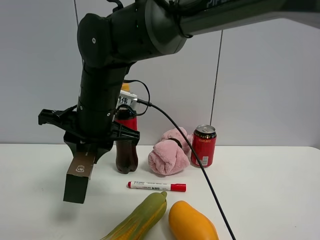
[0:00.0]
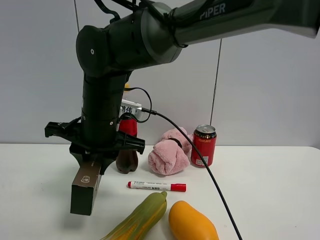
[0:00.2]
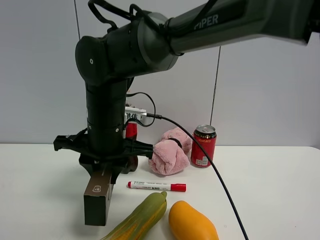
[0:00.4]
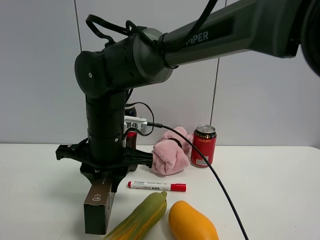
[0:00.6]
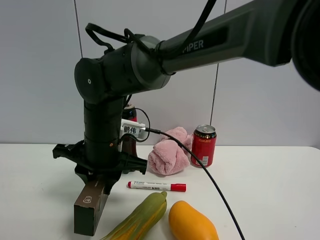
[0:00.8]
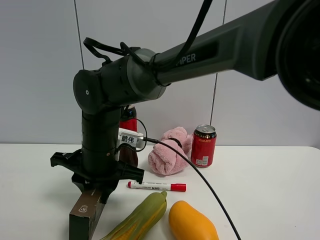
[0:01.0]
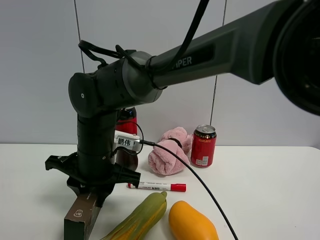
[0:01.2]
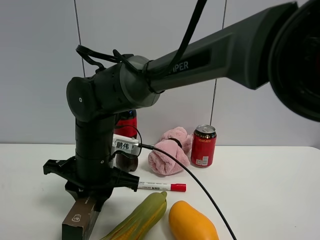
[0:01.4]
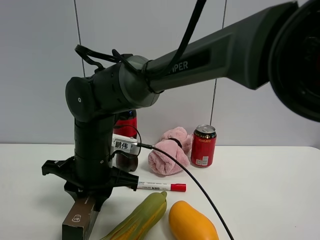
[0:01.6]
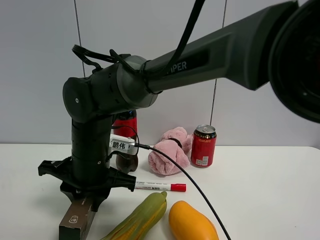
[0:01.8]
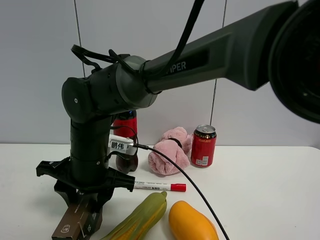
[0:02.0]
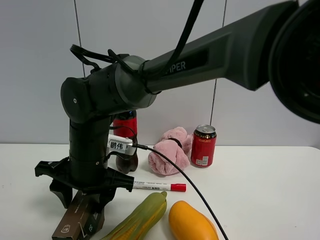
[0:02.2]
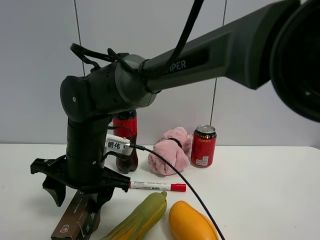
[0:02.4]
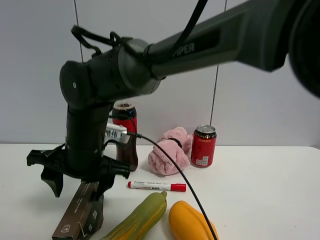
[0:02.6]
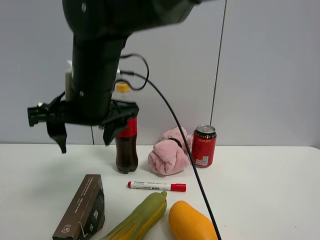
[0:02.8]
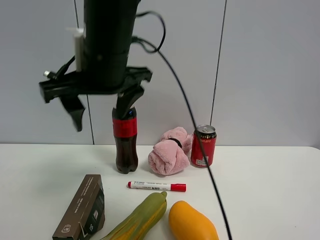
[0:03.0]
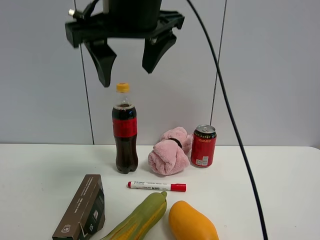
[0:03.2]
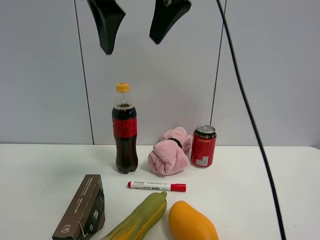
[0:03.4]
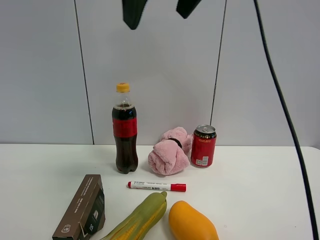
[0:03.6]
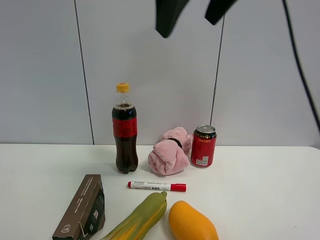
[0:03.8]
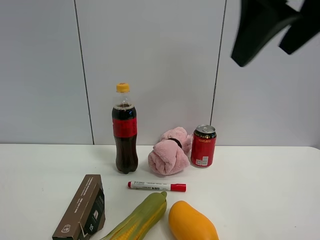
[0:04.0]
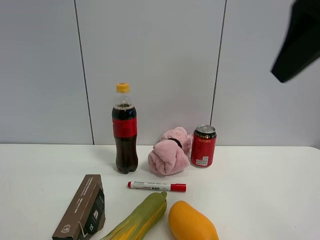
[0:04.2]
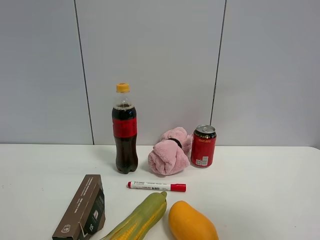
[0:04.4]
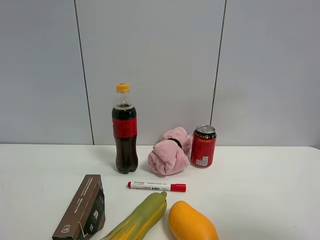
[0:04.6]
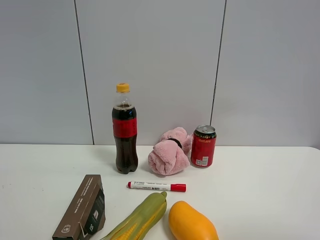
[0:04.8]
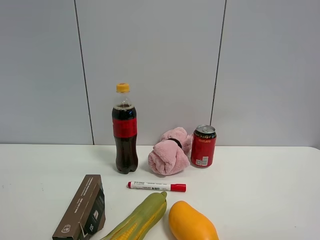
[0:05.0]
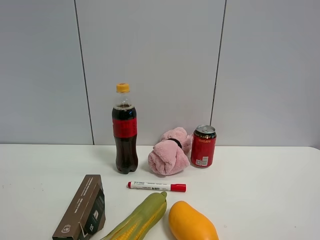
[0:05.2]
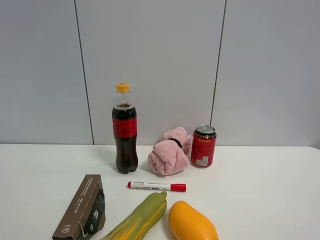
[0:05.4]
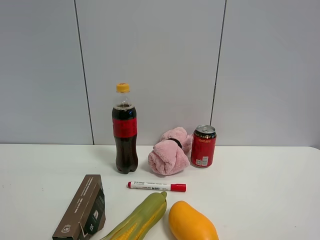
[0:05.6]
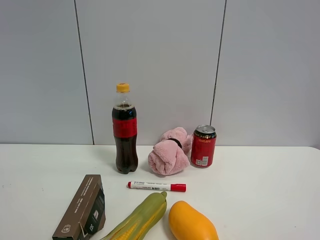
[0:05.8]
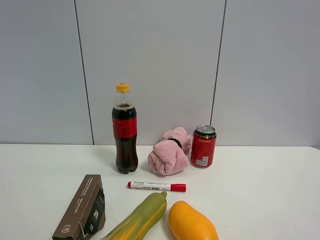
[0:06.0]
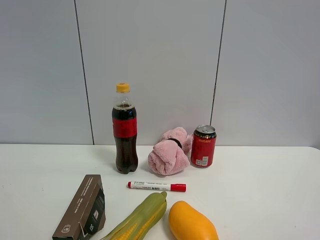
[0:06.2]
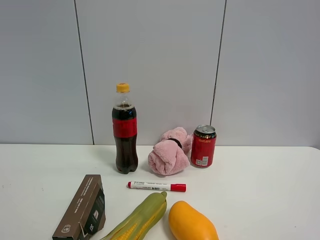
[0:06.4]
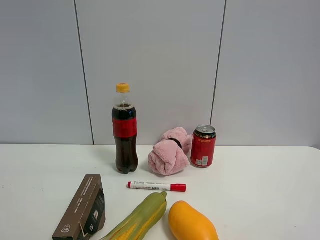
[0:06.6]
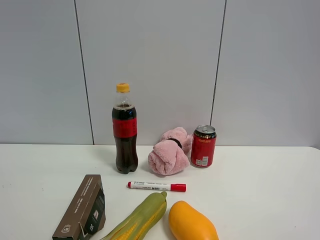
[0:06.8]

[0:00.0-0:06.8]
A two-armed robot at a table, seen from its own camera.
Task of the whole recording: the gripper move the object.
Step, 0:00.0 to 0:02.2: Place the brown box the table with the right gripper.
0:00.0 to 0:01.4: The right gripper heads downward, covering some 5 cm.
0:01.4 to 0:02.8: The right gripper shifts approximately 15 cm upward, and opens.
0:02.8 to 0:04.0: The right gripper travels to the right and upward by roughly 30 cm.
0:04.0 to 0:05.4: The right gripper is displaced backward, to the right and downward by some 25 cm.
0:05.4 to 0:06.8: Both grippers stay about where they are.

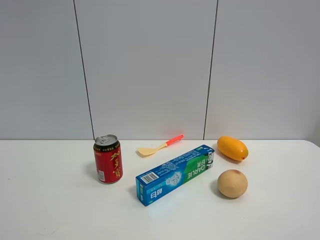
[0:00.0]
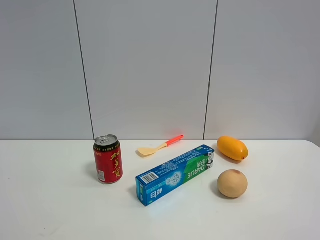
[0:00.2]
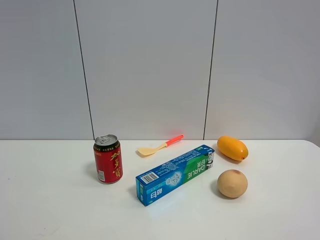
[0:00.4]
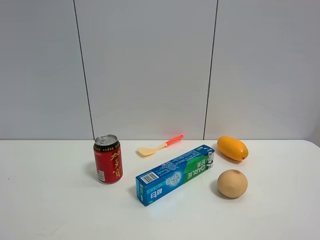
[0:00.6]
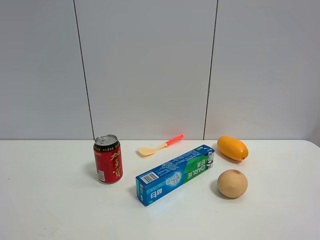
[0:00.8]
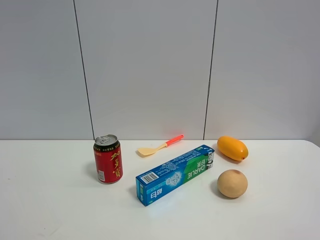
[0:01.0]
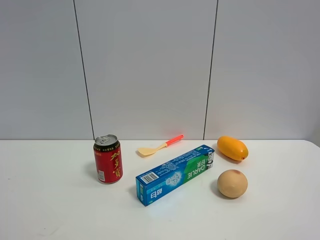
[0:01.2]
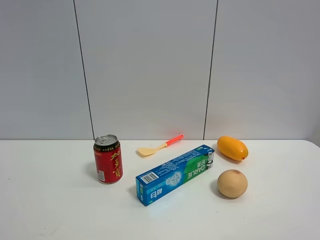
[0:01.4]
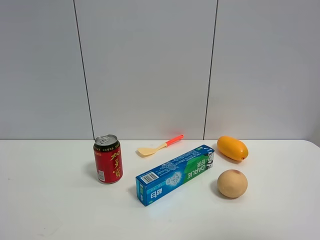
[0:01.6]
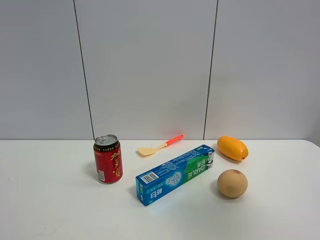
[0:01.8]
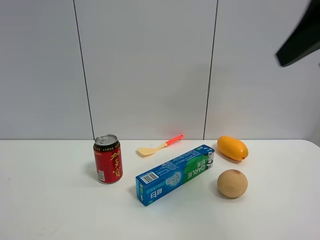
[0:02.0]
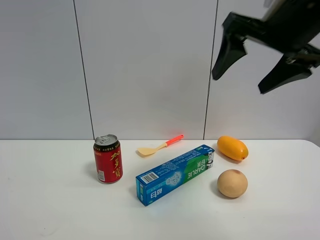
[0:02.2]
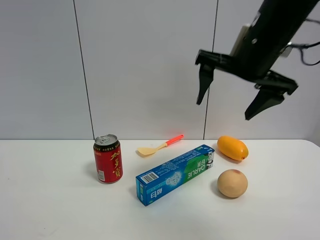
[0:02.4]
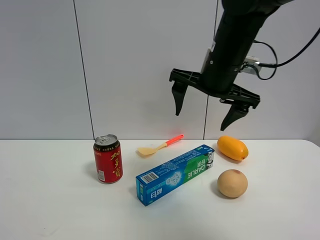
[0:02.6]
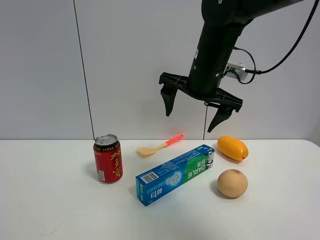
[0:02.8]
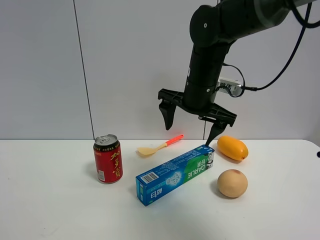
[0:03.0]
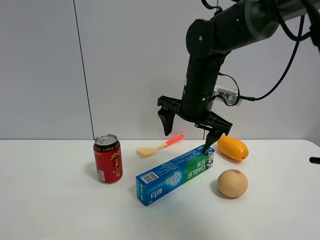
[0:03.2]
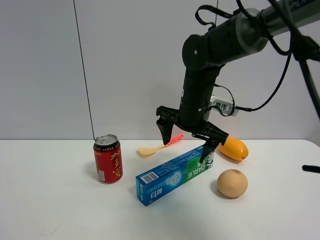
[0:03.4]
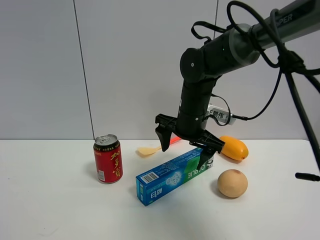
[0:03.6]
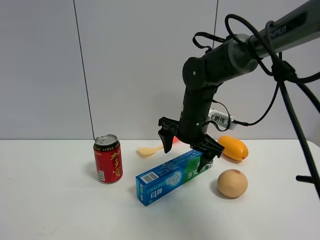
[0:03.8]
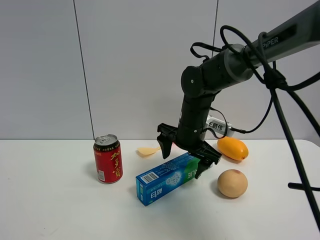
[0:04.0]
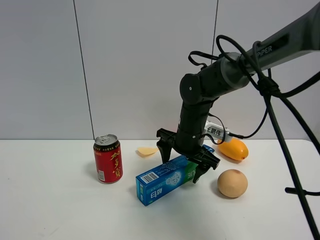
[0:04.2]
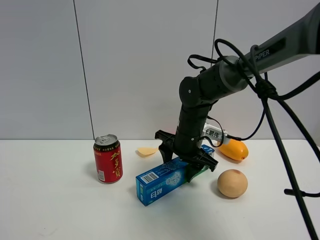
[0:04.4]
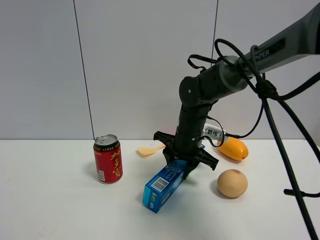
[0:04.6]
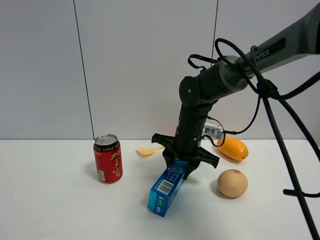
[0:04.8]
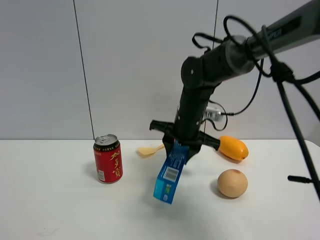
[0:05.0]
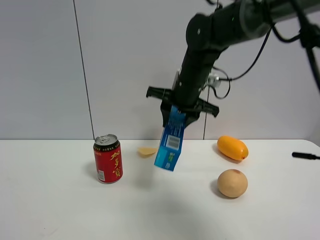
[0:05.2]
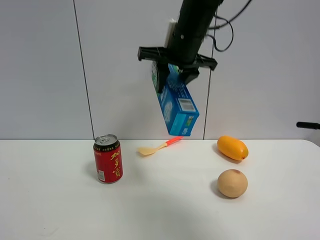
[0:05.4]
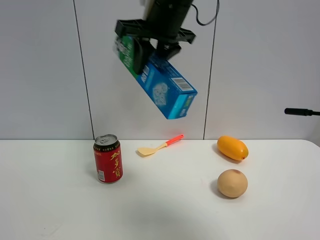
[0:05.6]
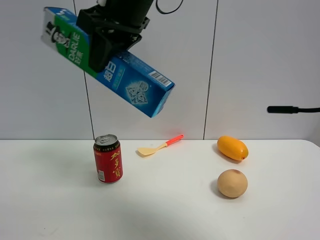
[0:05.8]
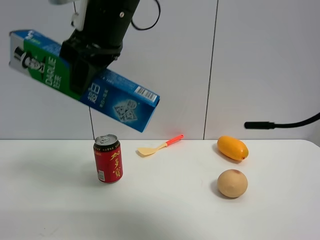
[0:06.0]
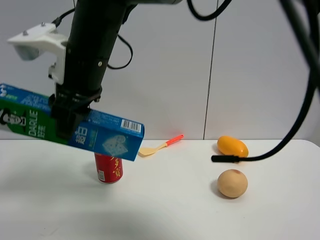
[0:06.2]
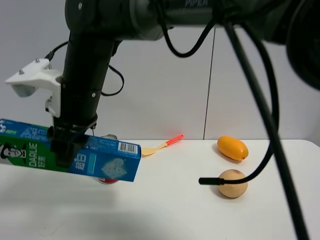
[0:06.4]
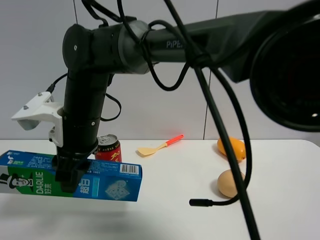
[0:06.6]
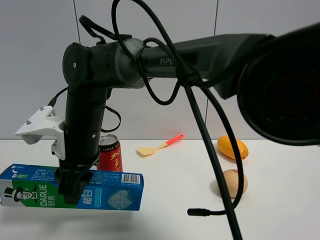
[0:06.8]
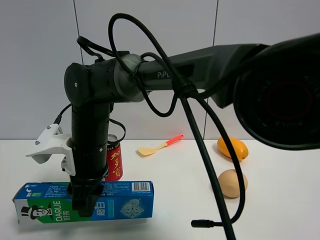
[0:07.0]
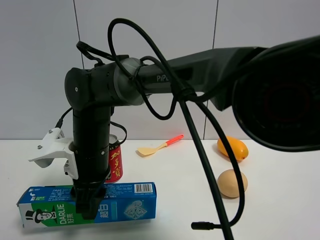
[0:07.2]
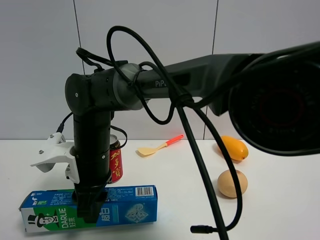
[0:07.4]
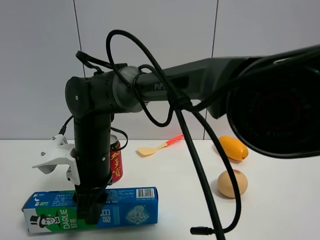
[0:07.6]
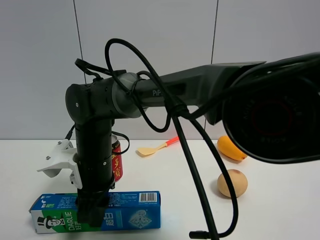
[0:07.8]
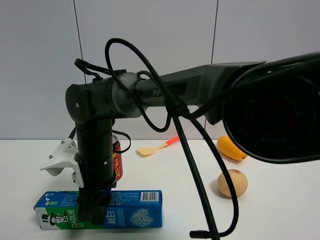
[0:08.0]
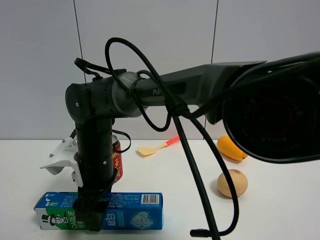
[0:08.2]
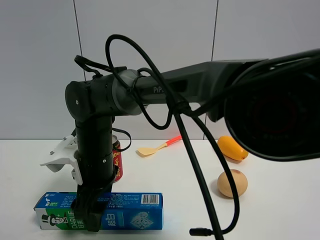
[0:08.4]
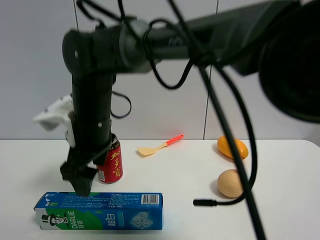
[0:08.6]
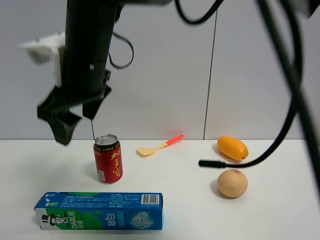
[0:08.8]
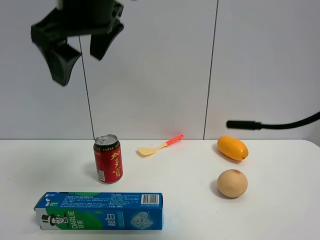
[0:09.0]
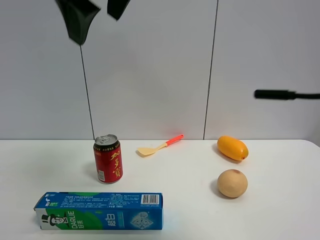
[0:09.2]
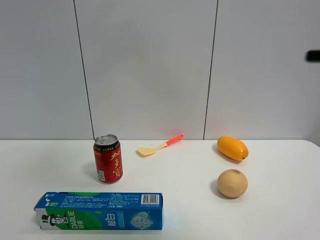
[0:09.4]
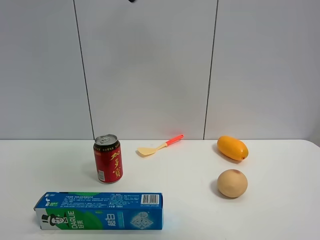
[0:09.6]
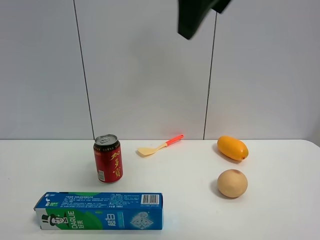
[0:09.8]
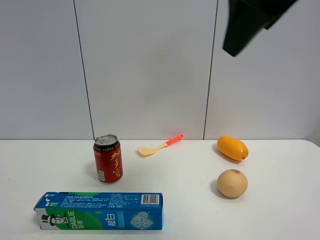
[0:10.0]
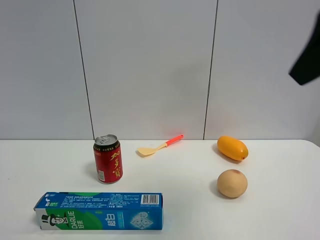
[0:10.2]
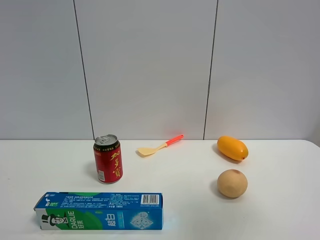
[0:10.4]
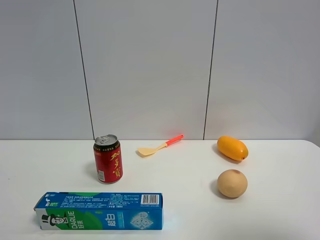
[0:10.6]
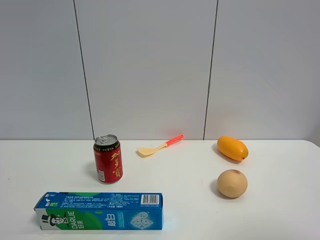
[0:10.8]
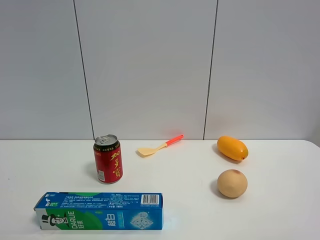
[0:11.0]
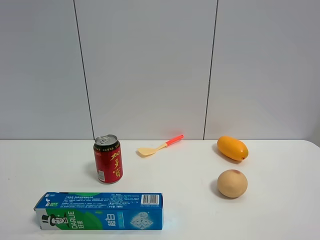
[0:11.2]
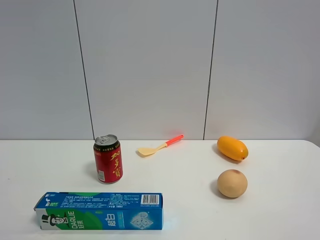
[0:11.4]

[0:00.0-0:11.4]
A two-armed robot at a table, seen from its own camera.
Task of the whole recording: the gripper move the object.
Step, 0:00.0 to 0:04.4: Grasp the toothpaste with the right gripper.
Step, 0:04.6 to 0:08.6: Place the toothpaste on the table with the right gripper.
0:01.4 to 0:02.8: The right gripper moves forward and to the left, roughly 40 cm.
0:02.8 to 0:04.2: The right gripper travels downward by some 15 cm.
0:04.2 to 0:05.6: The right gripper travels upward by about 25 cm, and closes.
0:05.6 to 0:07.2: The right gripper goes about 25 cm downward and to the left.
0:07.2 to 0:08.6: The right gripper shifts some 10 cm upward, and opens its fingers.
0:08.6 to 0:10.0: The right gripper moves to the right and upward, some 35 cm.
0:10.0 to 0:11.4: The right gripper moves backward, to the right and downward, some 30 cm.

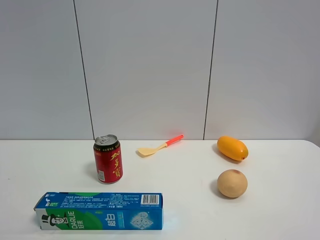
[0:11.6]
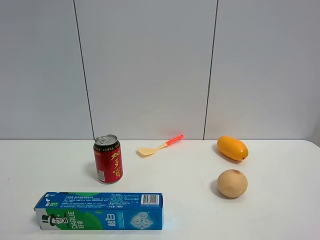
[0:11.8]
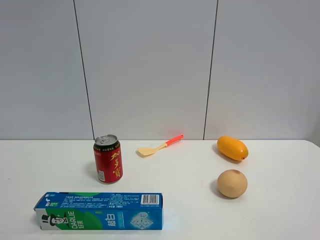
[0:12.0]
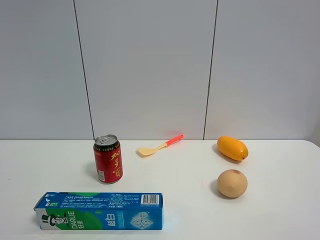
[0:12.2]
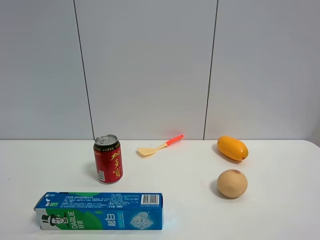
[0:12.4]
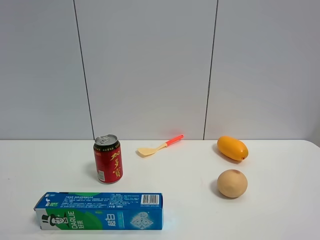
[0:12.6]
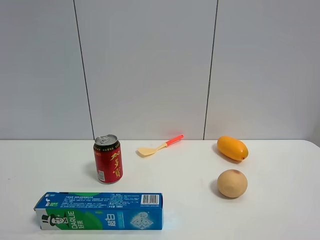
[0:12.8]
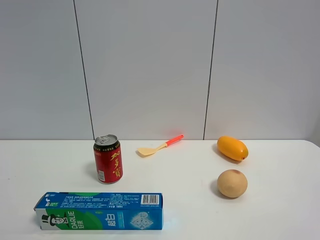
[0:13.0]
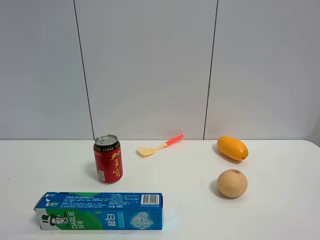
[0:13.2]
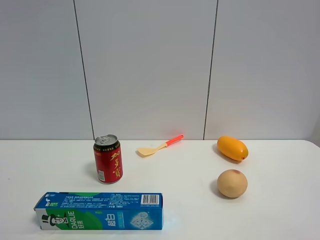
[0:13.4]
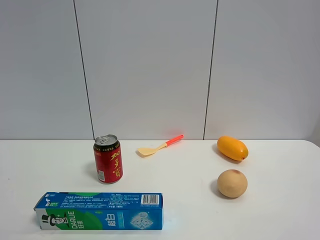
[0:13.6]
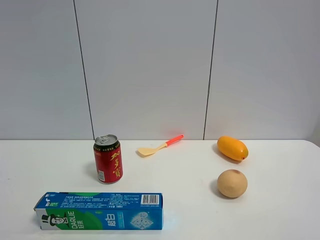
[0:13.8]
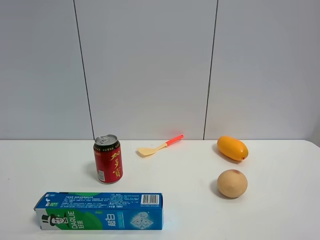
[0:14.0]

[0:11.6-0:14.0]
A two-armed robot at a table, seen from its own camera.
Task of the whole recording: the gripper move the object.
0:12.8 to 0:14.0: Both grippers stay about where they are.

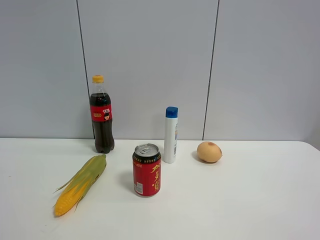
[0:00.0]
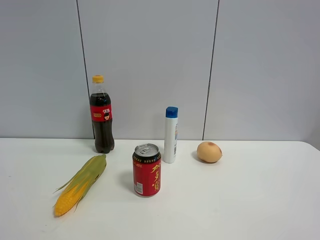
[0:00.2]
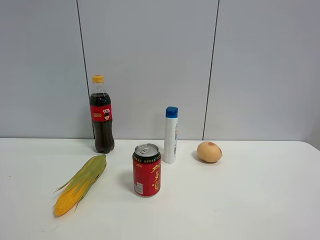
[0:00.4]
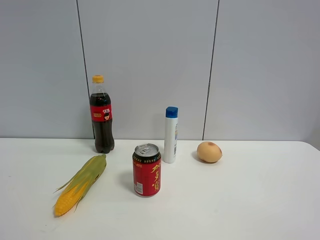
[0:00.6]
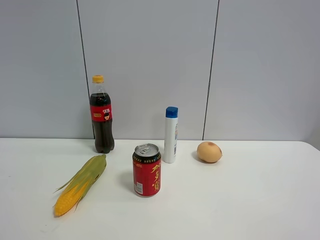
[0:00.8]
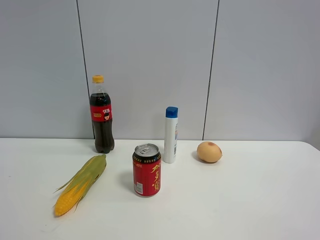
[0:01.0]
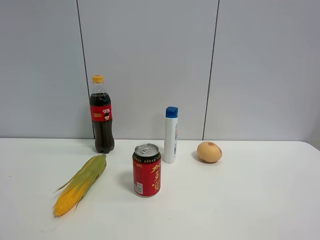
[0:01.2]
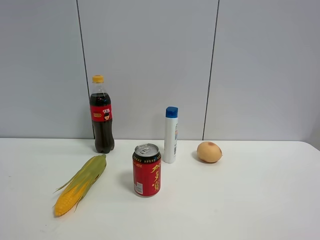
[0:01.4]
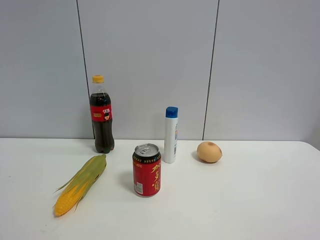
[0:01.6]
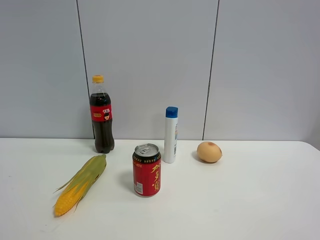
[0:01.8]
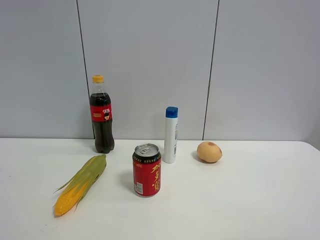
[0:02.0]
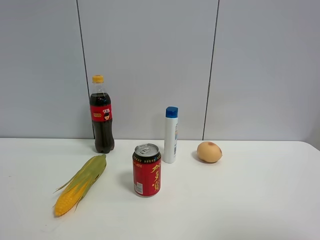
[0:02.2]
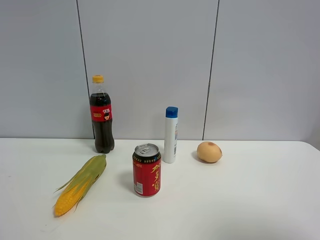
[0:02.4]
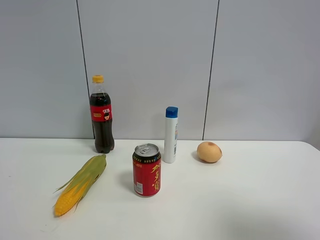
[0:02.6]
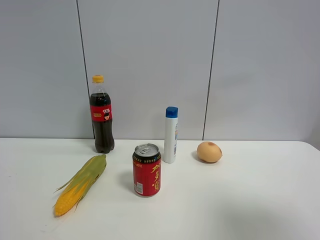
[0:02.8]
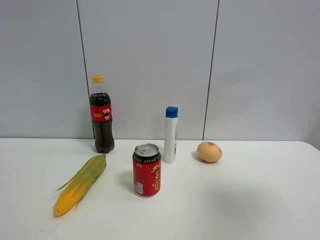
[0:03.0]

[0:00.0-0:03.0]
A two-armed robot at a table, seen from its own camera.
Task of the whole recording: the gripper move the object.
0:00.0 to 0:01.6: Both grippers stay put.
0:01.6 to 0:03.0: The right gripper travels forward and upward by some 20 cm.
